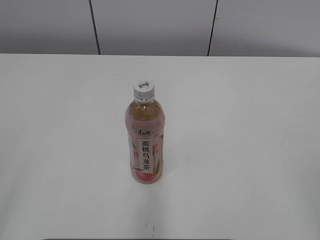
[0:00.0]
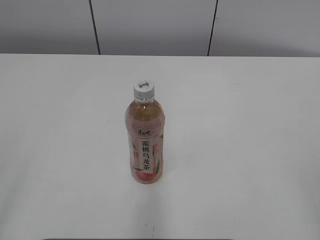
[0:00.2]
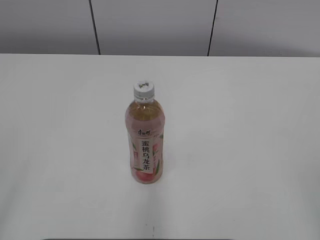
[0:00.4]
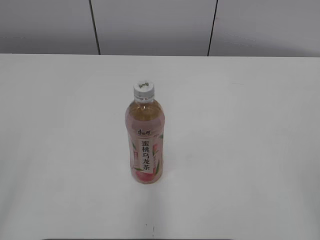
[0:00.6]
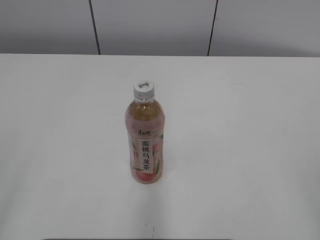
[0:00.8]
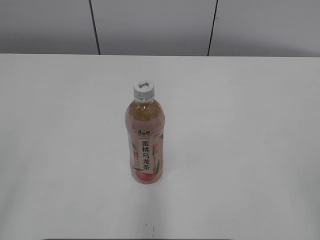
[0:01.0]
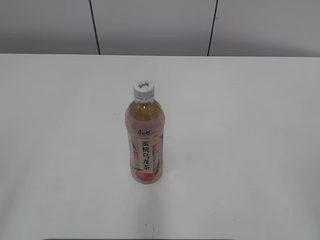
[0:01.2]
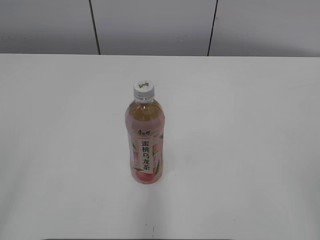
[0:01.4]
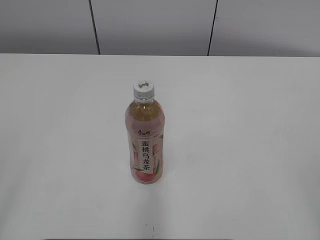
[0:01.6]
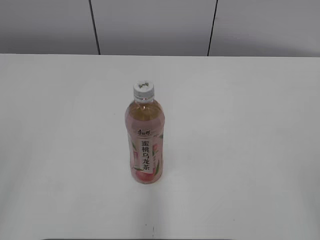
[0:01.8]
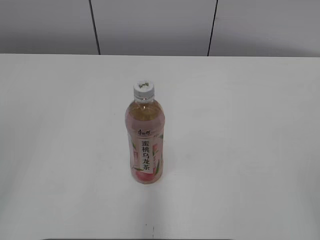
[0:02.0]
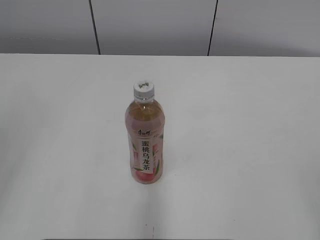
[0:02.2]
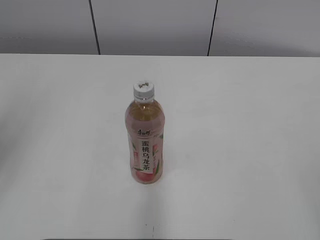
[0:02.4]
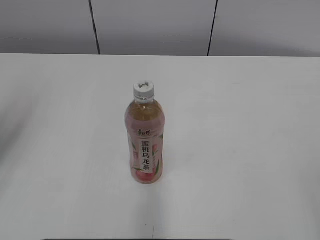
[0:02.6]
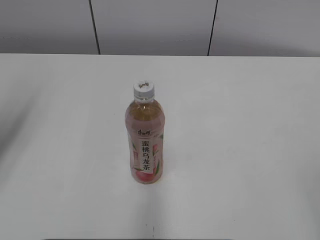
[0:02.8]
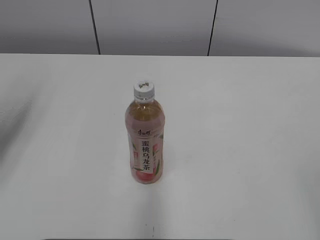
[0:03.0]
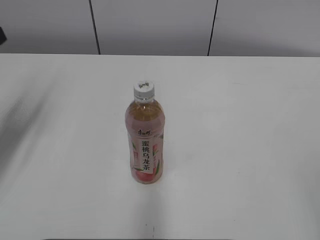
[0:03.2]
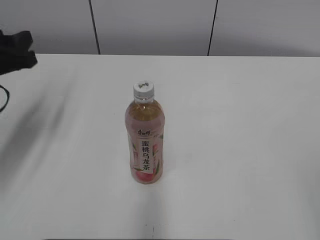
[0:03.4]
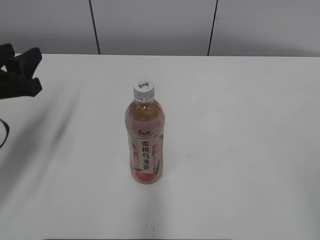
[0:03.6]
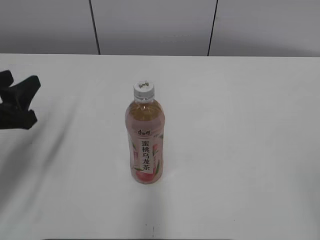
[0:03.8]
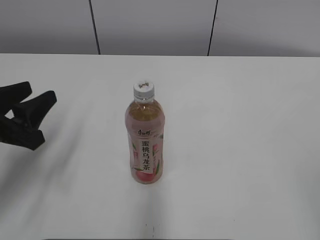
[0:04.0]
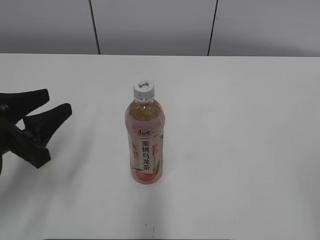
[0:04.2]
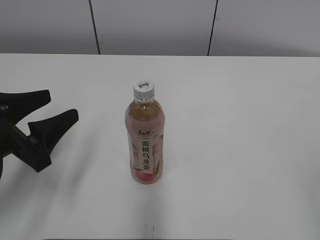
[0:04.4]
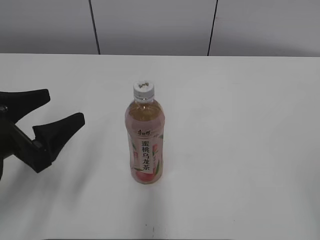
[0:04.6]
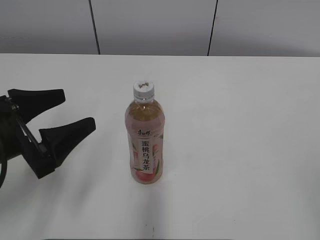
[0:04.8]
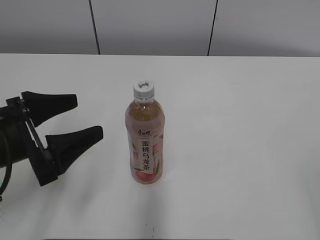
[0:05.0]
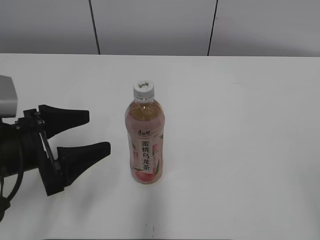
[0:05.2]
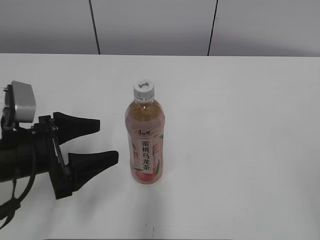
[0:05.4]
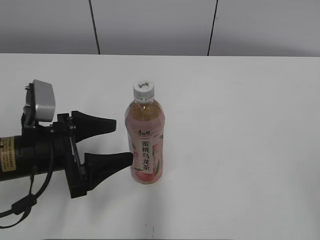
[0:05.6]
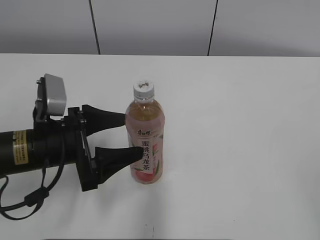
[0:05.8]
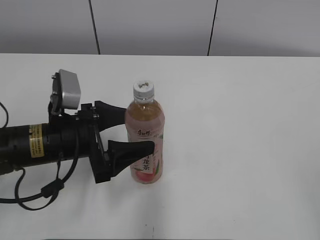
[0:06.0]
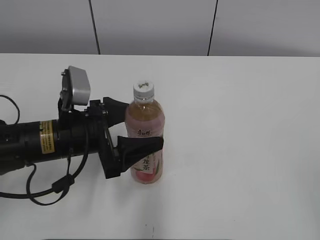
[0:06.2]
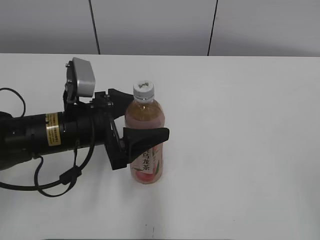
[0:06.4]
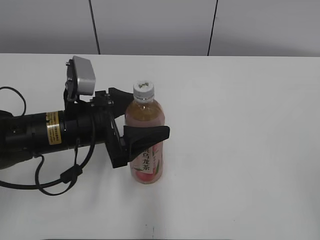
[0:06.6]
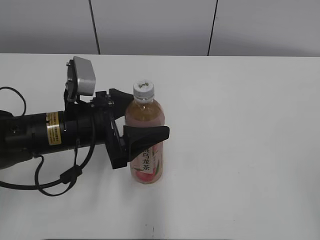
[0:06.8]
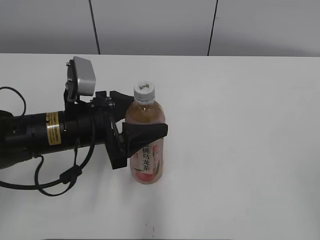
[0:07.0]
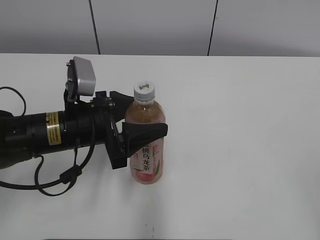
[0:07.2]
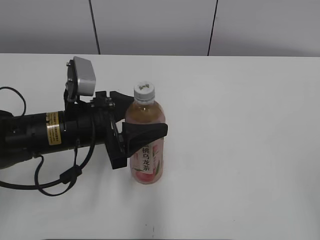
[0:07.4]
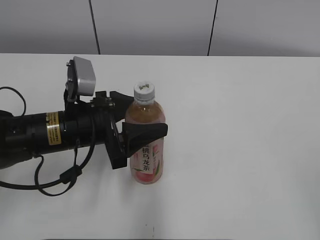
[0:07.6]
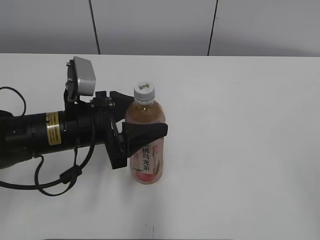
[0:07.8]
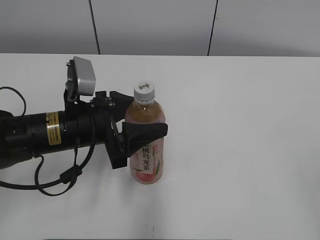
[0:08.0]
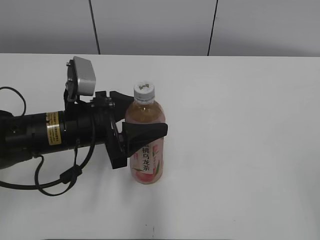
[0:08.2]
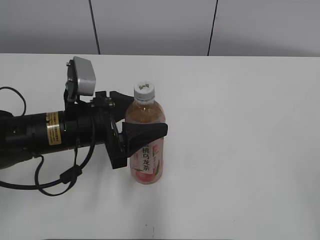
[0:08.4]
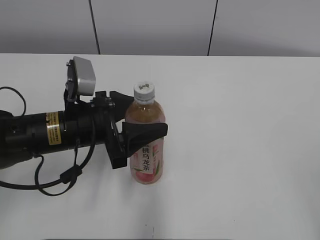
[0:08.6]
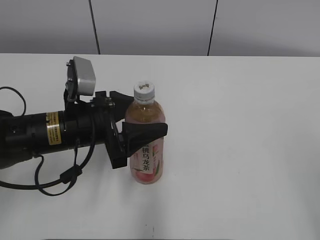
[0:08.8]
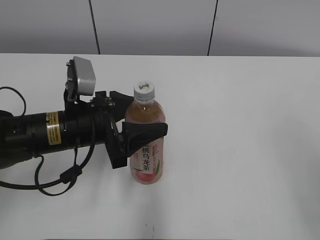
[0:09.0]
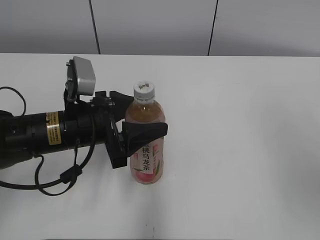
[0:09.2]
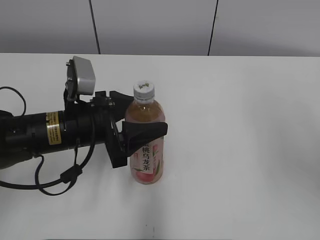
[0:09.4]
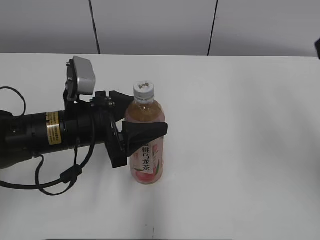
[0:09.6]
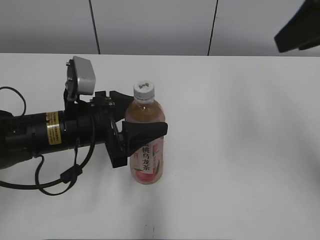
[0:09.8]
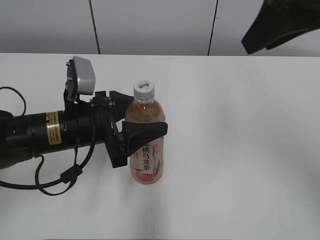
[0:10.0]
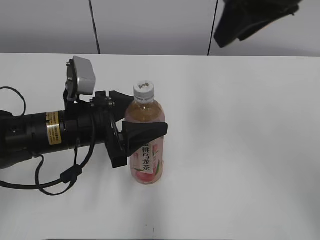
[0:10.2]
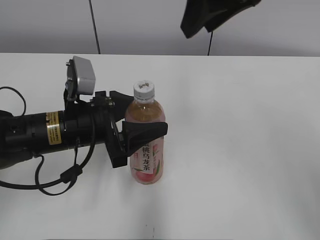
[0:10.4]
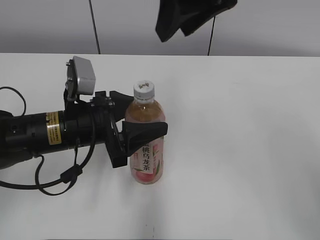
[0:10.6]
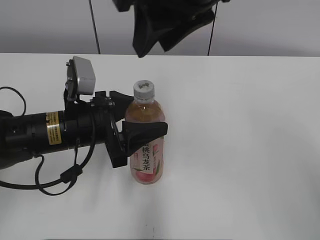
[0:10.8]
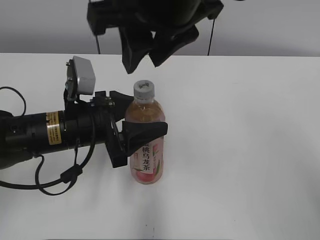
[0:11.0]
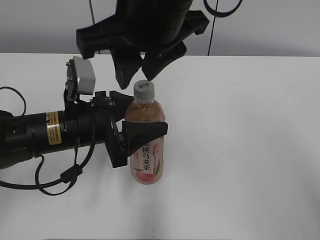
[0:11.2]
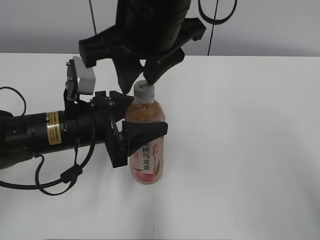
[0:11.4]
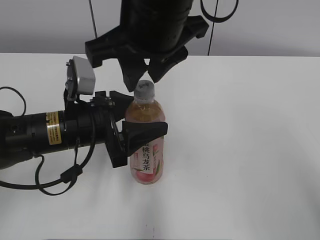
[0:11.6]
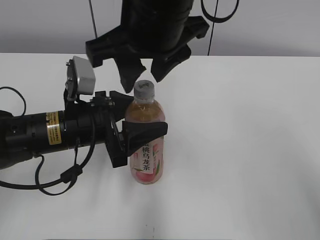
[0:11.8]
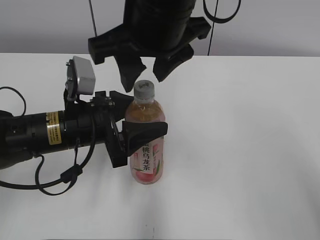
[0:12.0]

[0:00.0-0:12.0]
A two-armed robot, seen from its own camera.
Step, 0:00.0 to 0:07.2: Grab the Peach Oolong Tea with the left hand.
0:01.6 to 0:03.0: The left gripper shifts approximately 25 cm forward.
0:03.0 to 0:04.4: The left gripper heads downward and to the right, covering roughly 15 cm.
0:04.4 to 0:06.0: The left gripper goes about 10 cm to the right, and opens up.
0:06.0 to 0:07.6: The left gripper closes its fingers.
0:09.0 to 0:10.4: The right gripper moves forward and to the left, some 30 cm.
0:10.4 to 0:12.0: The right gripper is displaced to the left and downward by some 10 cm.

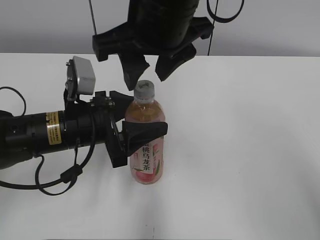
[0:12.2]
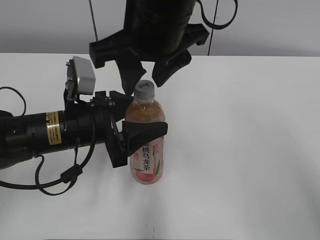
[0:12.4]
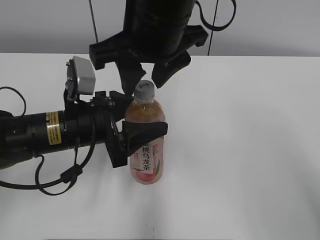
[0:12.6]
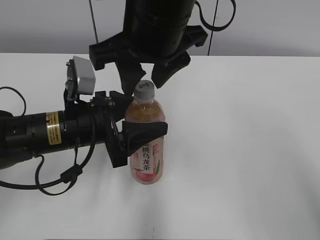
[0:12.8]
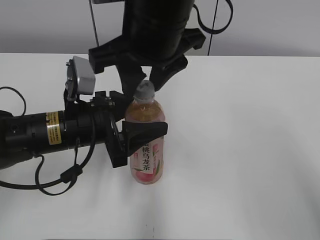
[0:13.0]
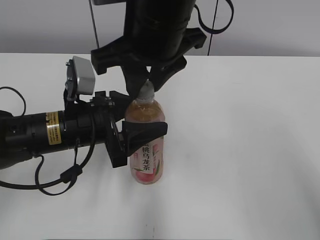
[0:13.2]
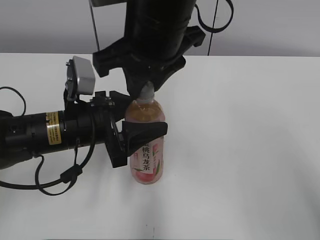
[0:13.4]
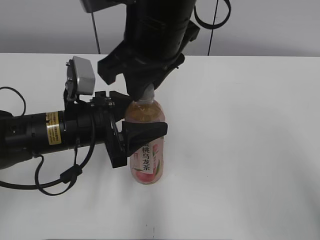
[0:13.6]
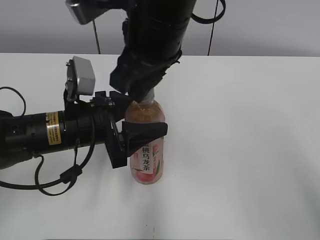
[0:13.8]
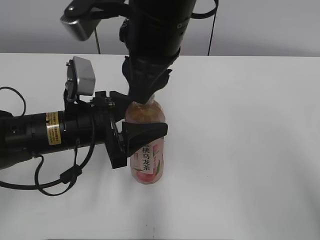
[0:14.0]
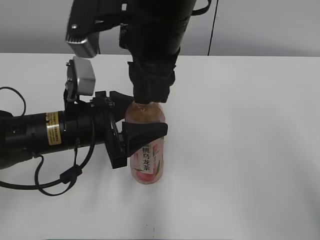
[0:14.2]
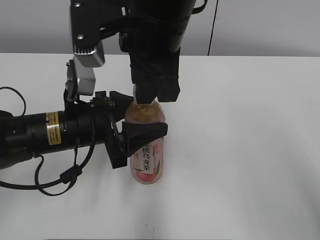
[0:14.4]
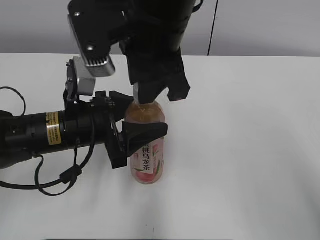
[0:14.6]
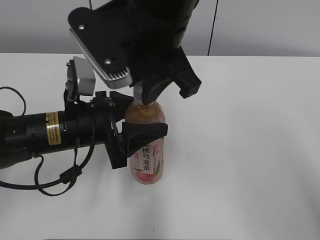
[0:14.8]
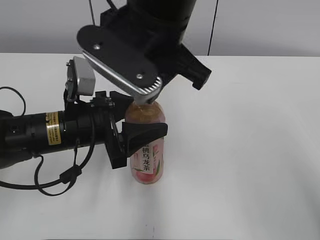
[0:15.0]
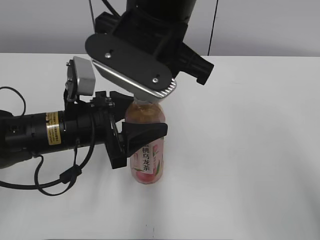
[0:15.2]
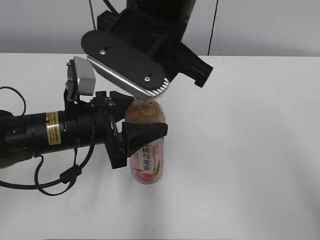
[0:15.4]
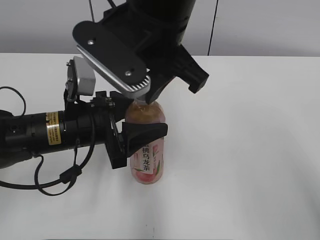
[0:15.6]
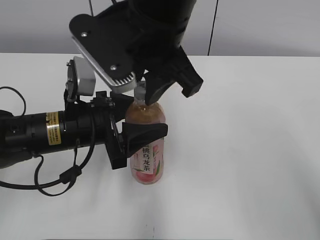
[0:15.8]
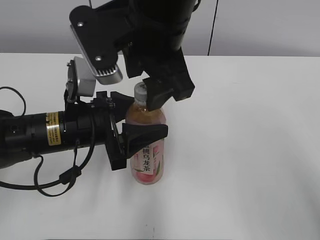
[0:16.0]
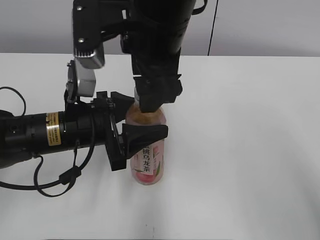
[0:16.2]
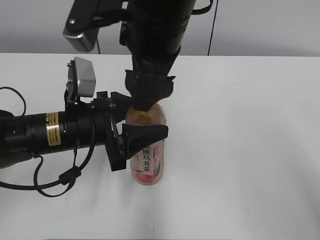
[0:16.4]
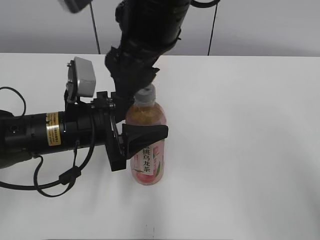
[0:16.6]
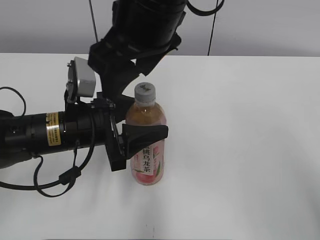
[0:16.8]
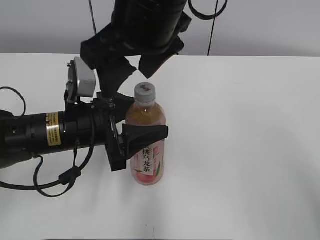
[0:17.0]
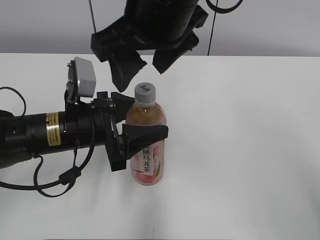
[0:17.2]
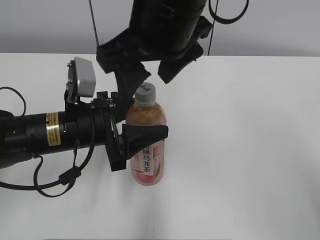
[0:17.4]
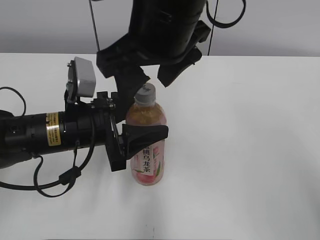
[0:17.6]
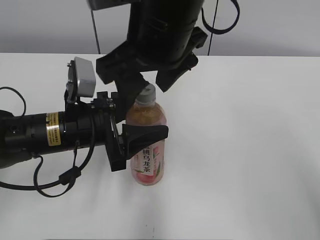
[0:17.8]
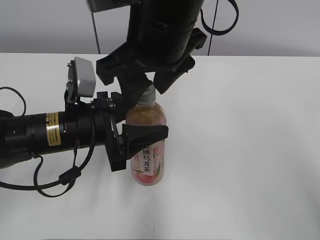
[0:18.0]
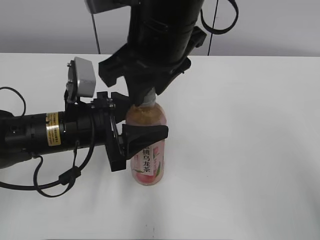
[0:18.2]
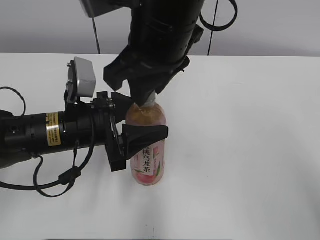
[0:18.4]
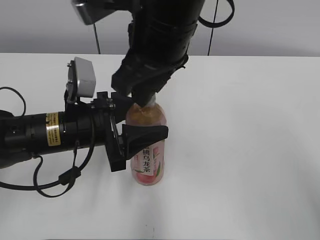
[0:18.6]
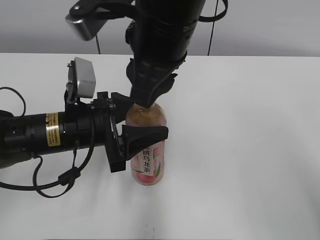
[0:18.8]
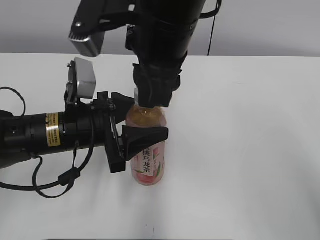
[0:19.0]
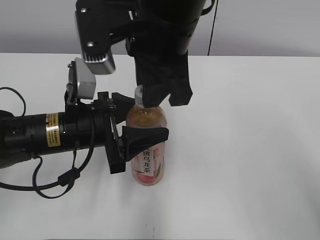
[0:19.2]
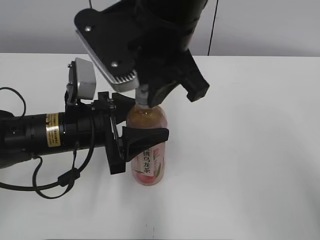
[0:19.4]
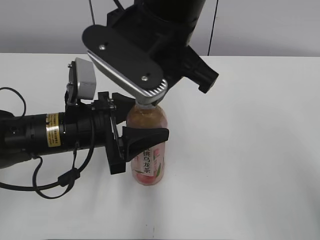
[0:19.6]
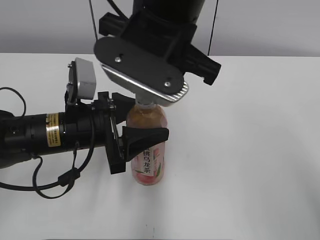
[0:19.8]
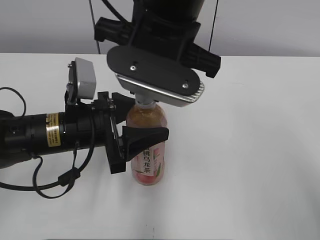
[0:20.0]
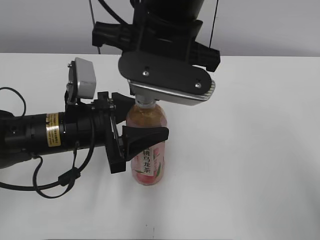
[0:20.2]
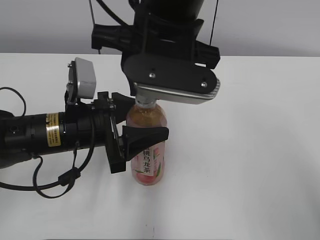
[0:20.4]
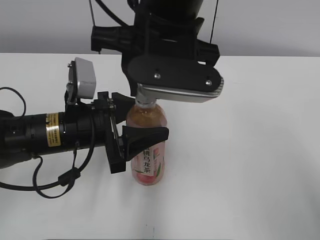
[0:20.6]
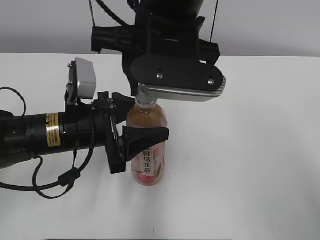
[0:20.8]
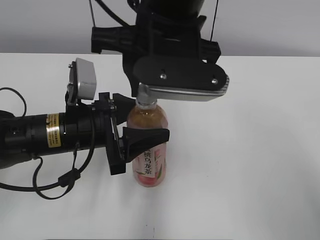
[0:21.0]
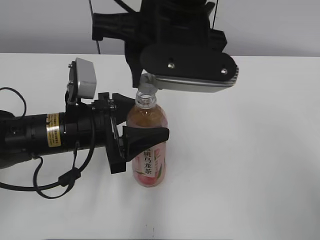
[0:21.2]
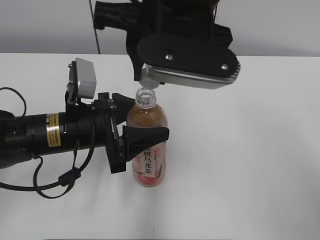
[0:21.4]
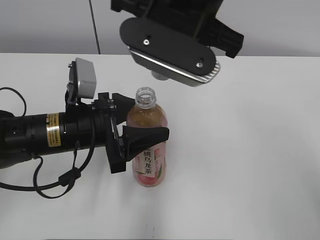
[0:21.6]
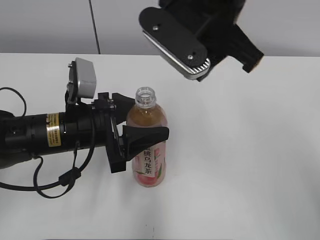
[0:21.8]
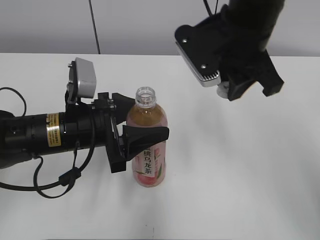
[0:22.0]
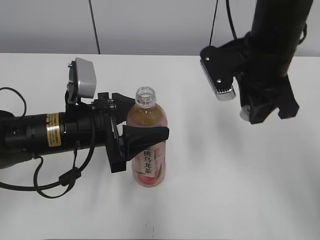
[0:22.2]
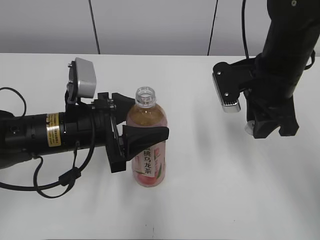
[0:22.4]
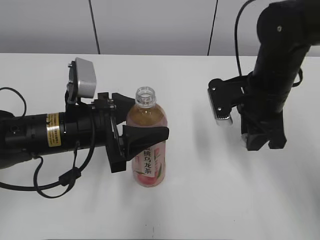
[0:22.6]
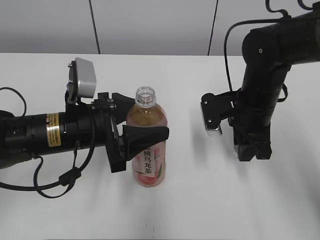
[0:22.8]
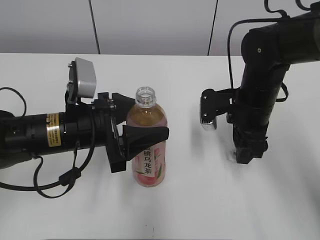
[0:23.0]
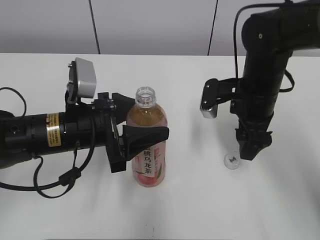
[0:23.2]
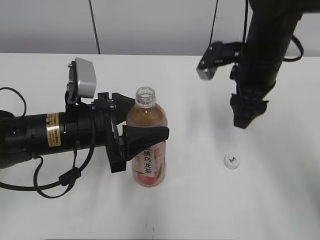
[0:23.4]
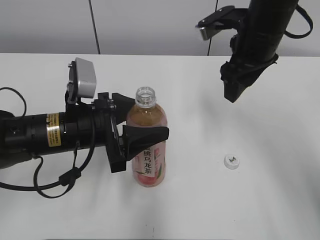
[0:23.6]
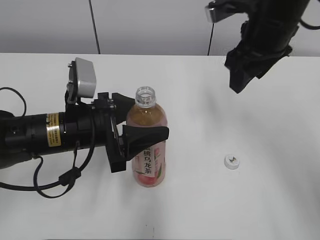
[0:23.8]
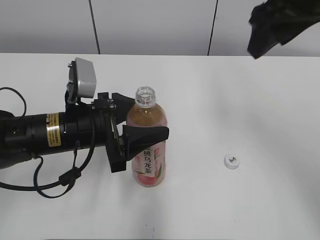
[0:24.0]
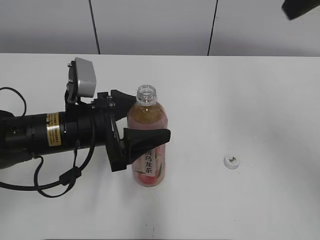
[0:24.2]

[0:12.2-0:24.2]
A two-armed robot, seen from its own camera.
Step, 0:21.6 to 0:23.0: Place the bottle cap on the right.
0:12.2 to 0:13.8: The right gripper closes.
0:15.2 to 0:16.6: The right gripper opens up.
0:16.6 to 0:18.2: The right gripper closes its fingers.
0:21.2 to 0:22.6: The right gripper moves to the right and downward, roughly 20 cm.
0:22.6 to 0:24.2: The right gripper shifts roughly 20 cm upward, and opens.
